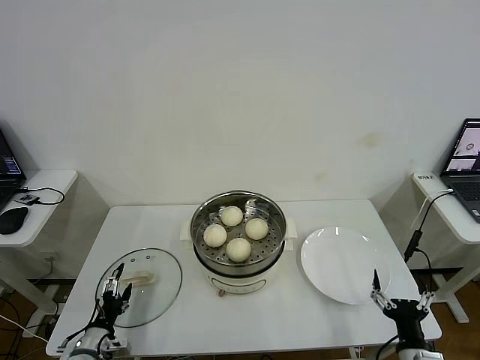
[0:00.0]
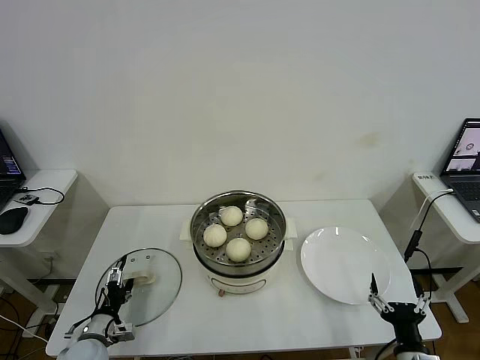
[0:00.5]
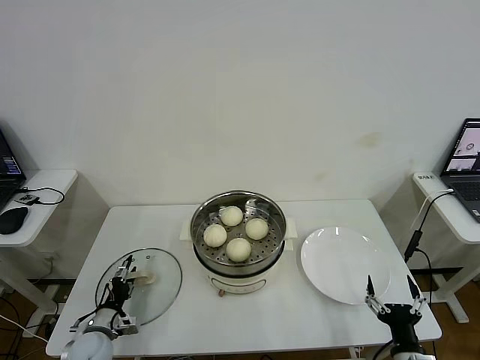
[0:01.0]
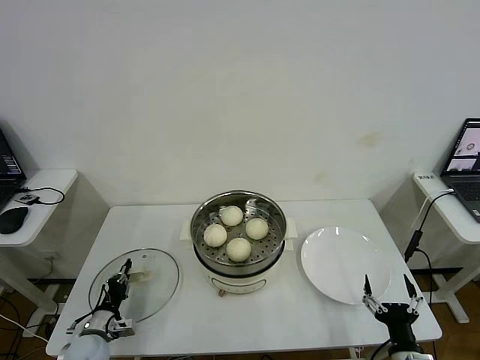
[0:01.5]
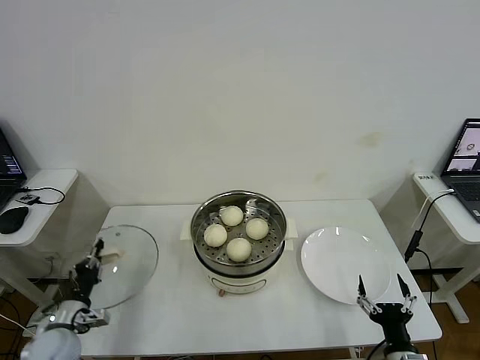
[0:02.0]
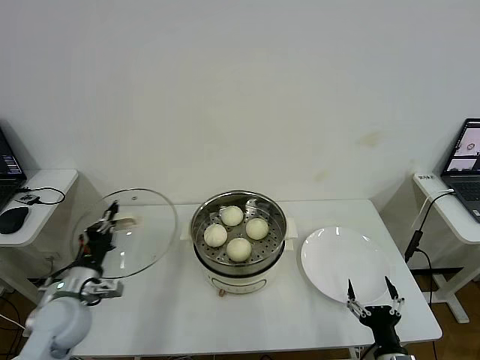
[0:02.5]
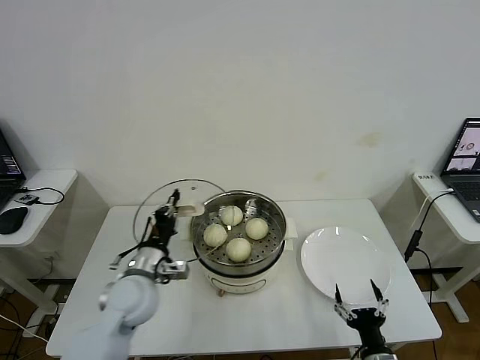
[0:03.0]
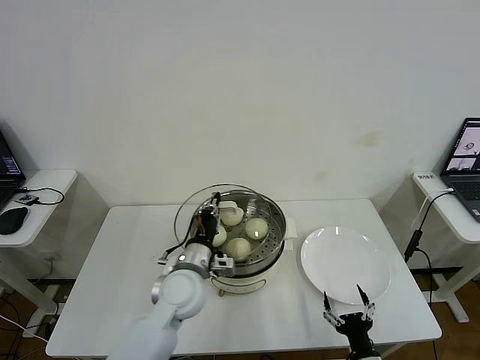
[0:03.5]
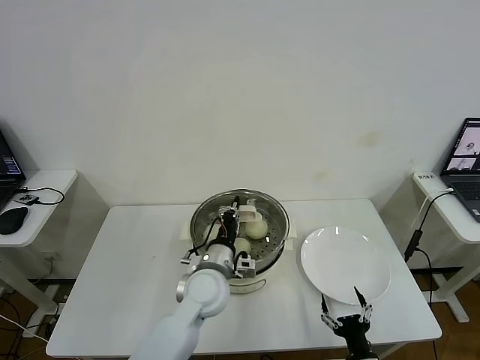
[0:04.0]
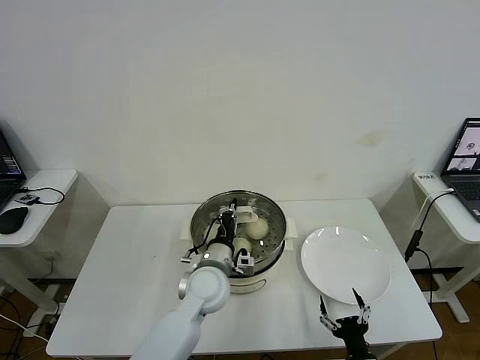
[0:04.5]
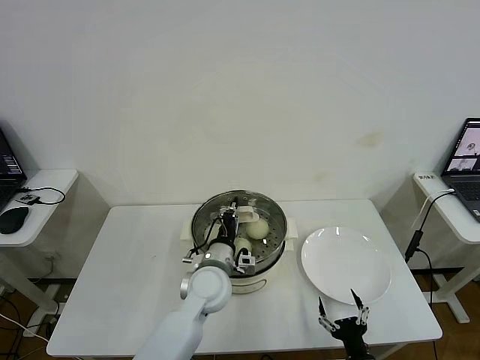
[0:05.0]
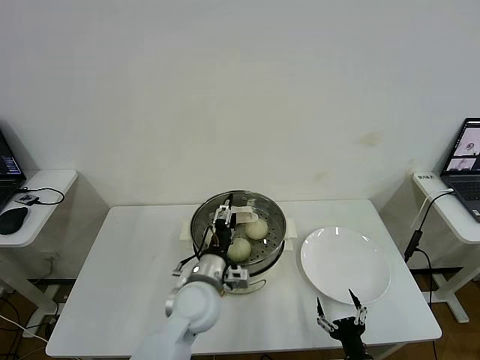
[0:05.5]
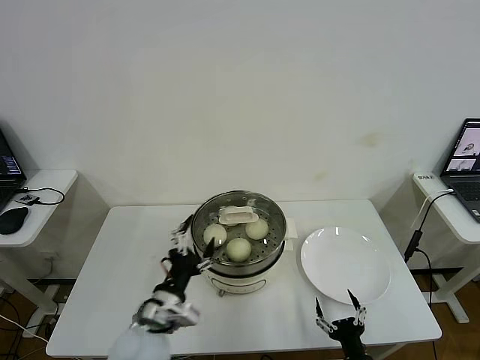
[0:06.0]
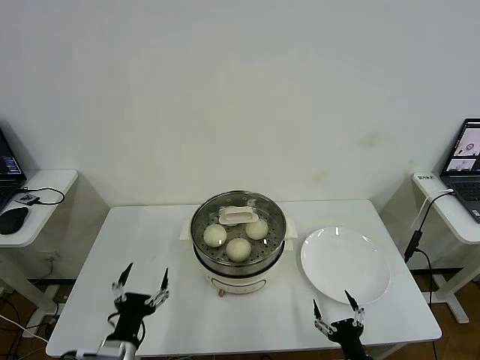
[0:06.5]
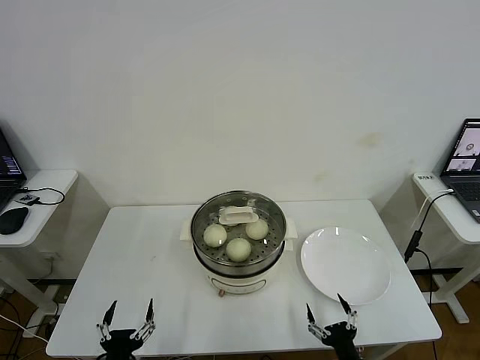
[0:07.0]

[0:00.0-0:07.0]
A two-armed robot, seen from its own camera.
Step, 0:02.0 to 0:05.0: Place the pot lid on the steamer with left gripper.
0:00.0 to 0:02.0: The left gripper ends up some 5 cm from where it was, and closes.
0:02.0 to 0:03.5: The left gripper heads to the right and upward, covering some 30 cm. Meanwhile the right gripper changes place by approximately 5 cm.
0:03.5 to 0:05.0: The left gripper moves to the right, roughly 5 cm.
0:05.0 to 0:07.0: The left gripper travels backward and to the left by roughly 30 cm, and opens its fingers.
